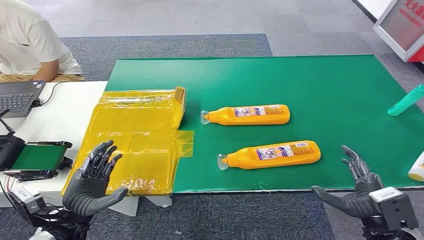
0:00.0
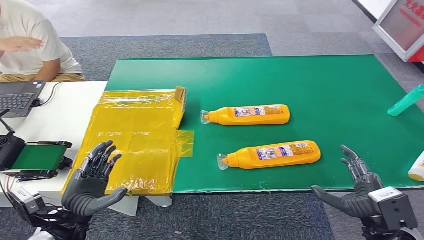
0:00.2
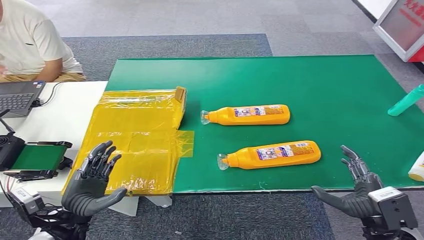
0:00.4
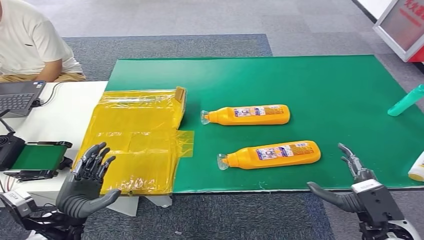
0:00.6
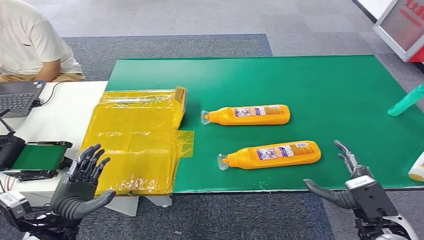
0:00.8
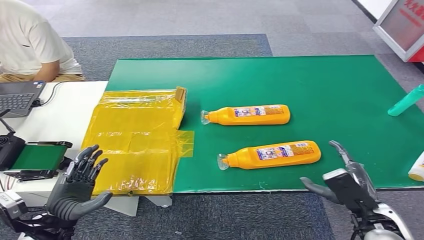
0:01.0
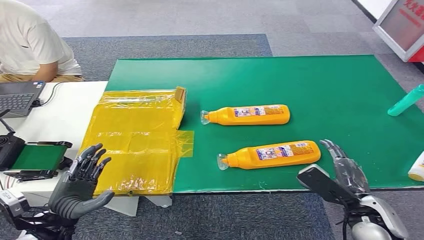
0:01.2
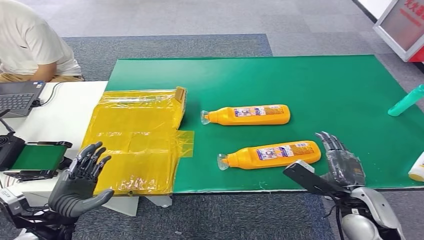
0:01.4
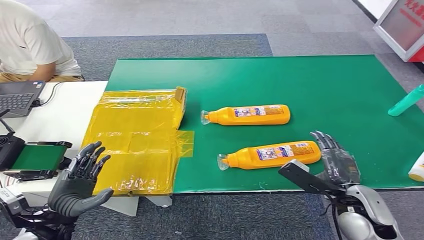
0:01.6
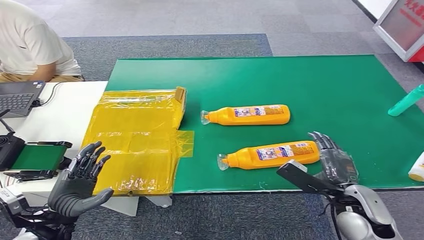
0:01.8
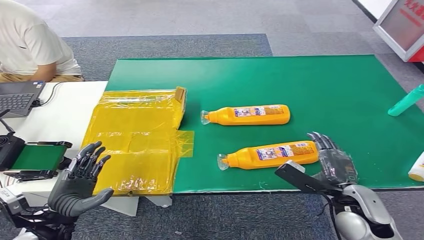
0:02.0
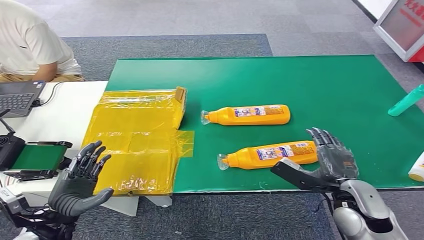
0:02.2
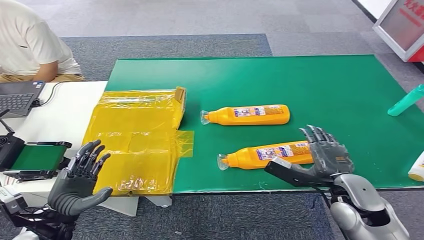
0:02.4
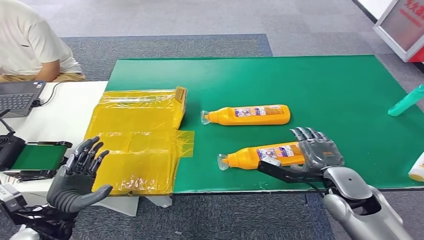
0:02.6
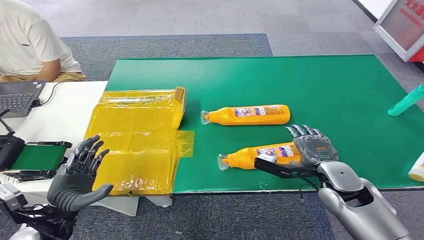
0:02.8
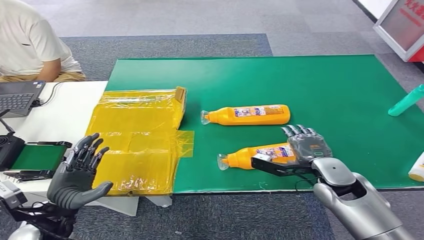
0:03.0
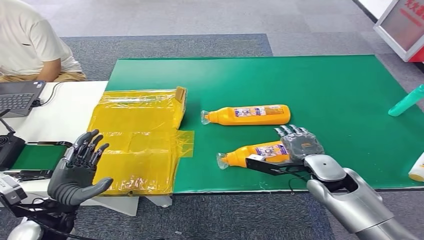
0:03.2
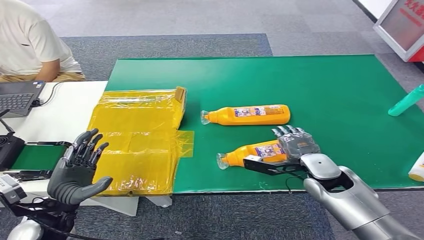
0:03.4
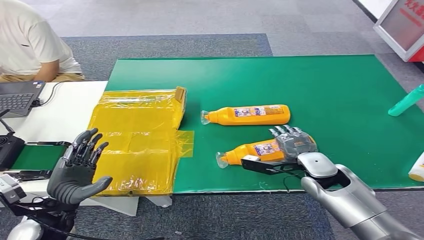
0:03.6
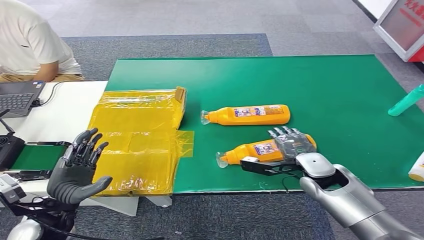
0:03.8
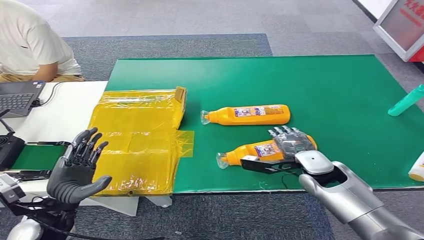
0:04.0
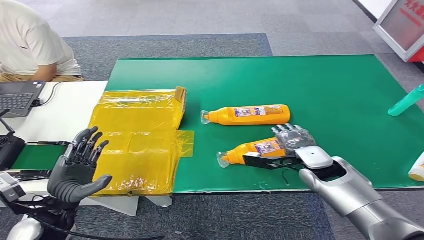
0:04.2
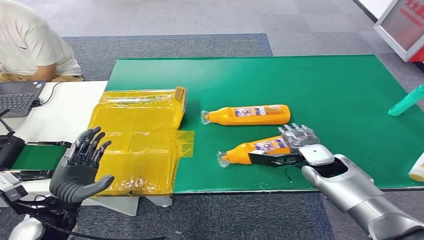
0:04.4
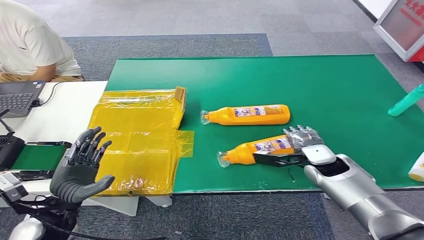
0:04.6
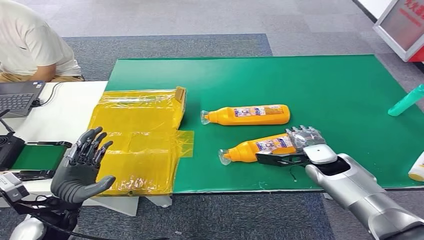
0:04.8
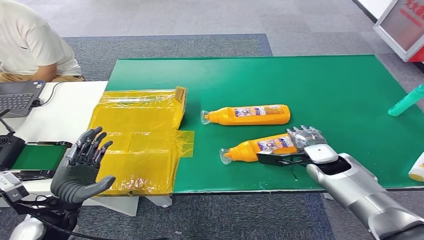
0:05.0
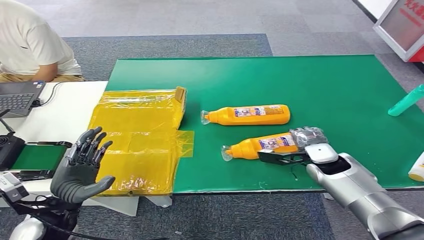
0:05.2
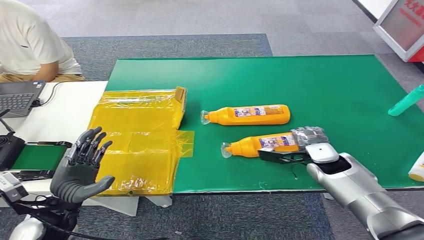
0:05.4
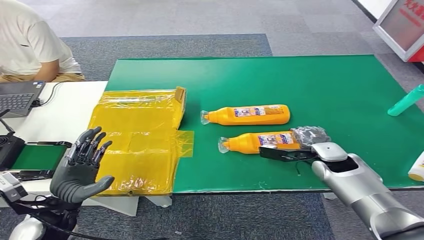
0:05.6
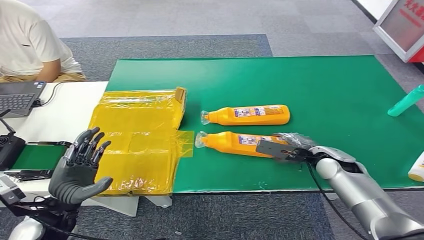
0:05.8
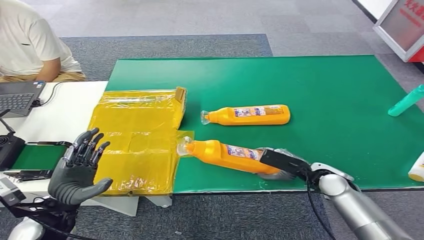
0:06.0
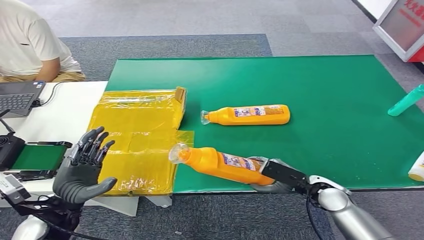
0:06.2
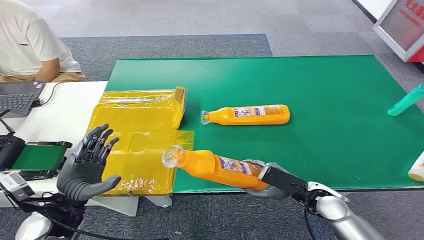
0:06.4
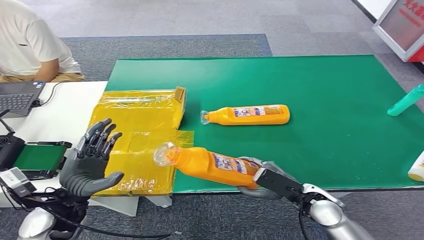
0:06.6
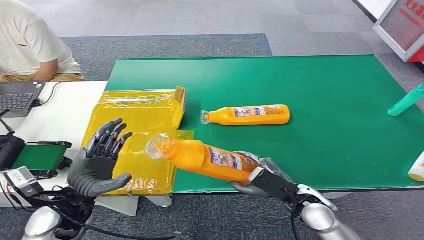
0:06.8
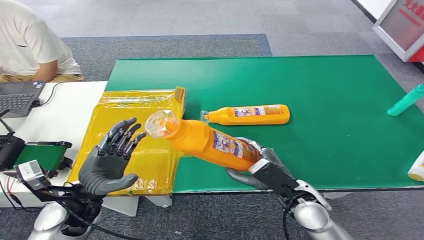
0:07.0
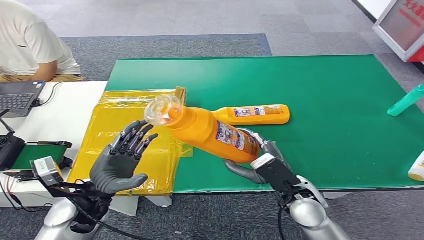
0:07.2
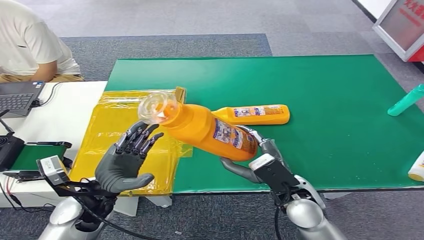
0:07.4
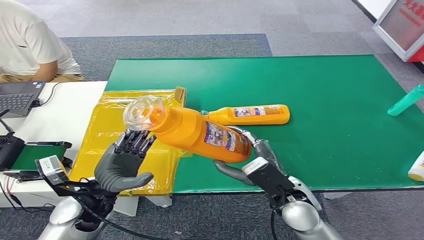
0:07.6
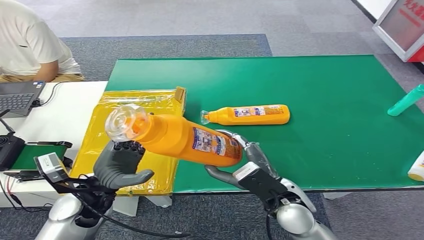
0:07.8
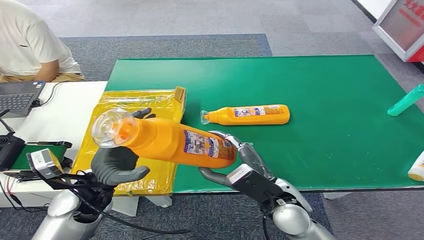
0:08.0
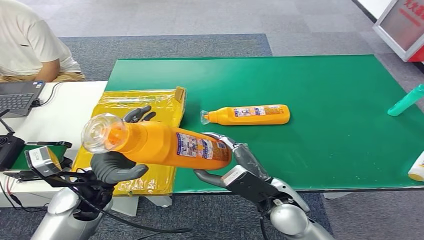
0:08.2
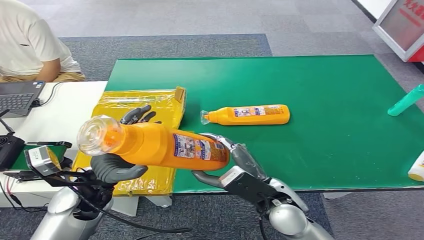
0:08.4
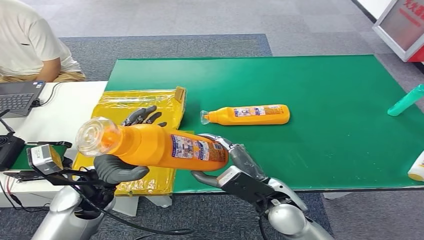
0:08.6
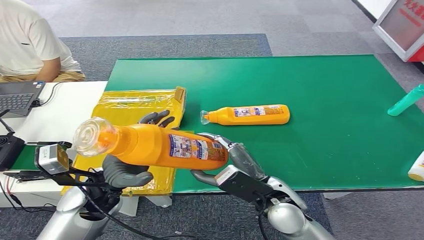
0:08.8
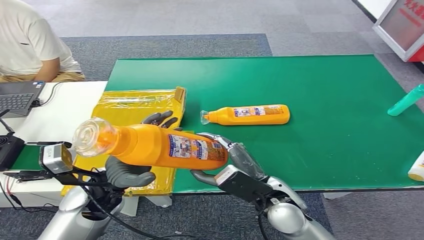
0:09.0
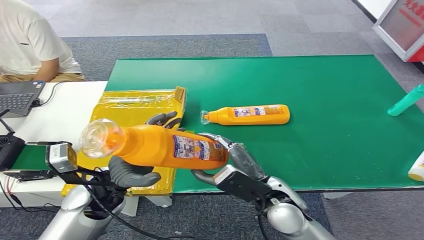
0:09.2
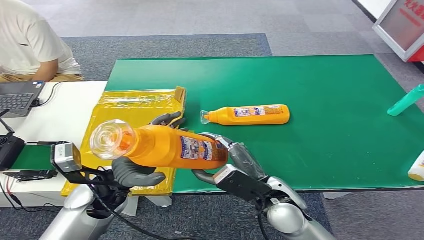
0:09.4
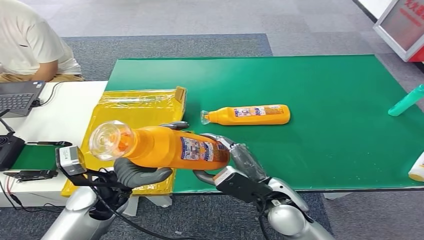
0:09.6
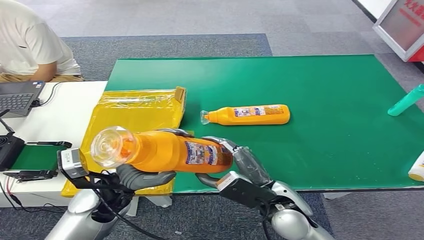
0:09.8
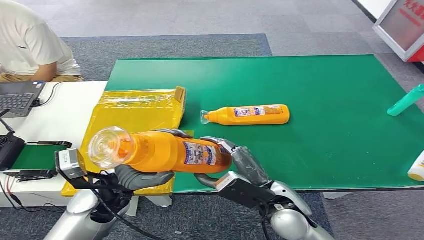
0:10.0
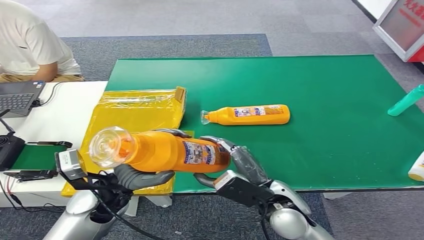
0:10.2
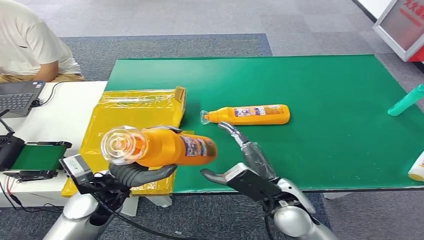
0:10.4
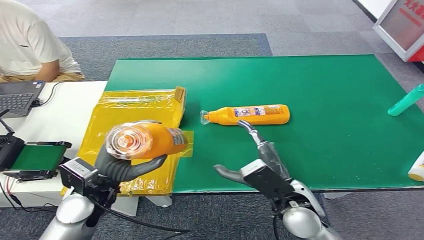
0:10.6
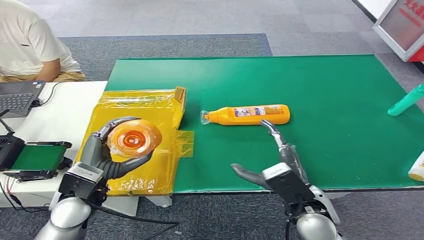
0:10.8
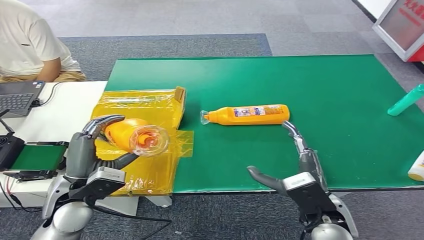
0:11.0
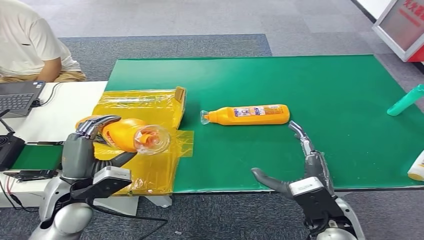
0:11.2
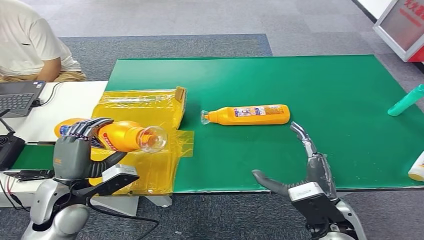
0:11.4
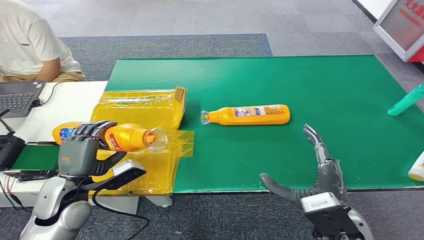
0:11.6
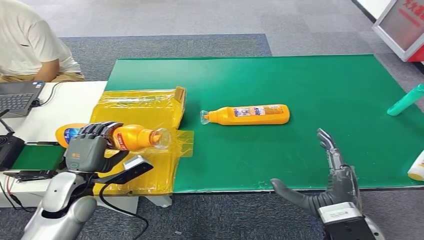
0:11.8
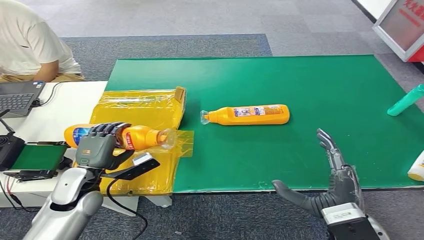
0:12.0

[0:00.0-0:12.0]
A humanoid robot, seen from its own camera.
Step, 0:00.0 to 0:08.4: Pick up the bottle from the table.
0:01.6 to 0:03.0: The right hand heads forward, covering approximately 10 cm.
0:03.0 to 0:04.4: The right hand goes some 5 cm forward.
0:04.4 to 0:06.0: The right hand ends up approximately 5 cm from where it was.
0:07.6 to 0:09.0: There are only small adjustments of the hands.
0:10.4 to 0:12.0: The left hand travels to the left by some 5 cm, while the right hand travels to the right and backward by about 15 cm.

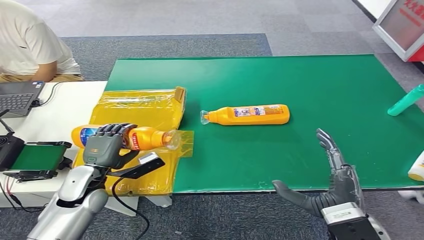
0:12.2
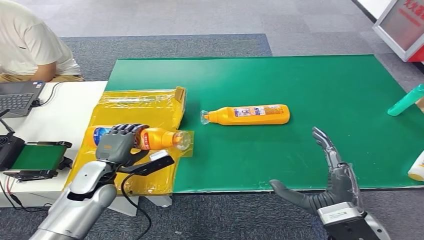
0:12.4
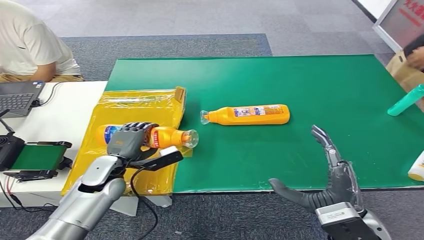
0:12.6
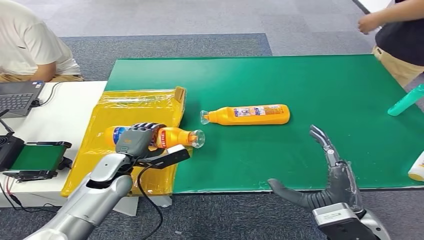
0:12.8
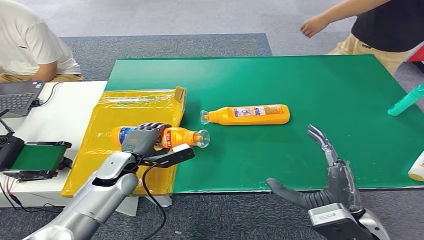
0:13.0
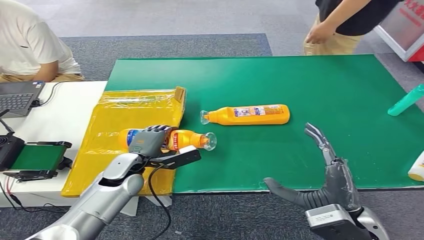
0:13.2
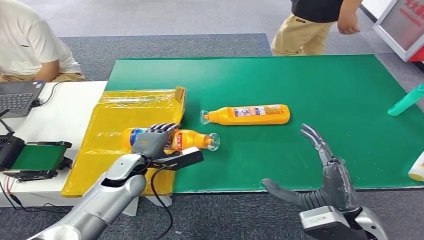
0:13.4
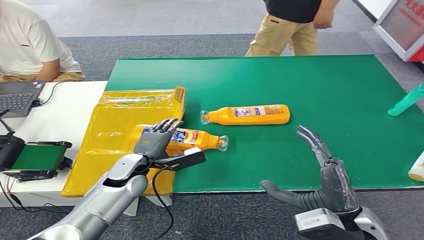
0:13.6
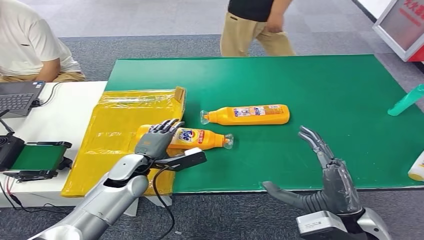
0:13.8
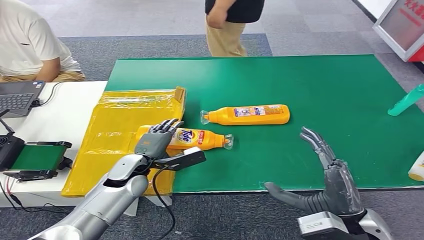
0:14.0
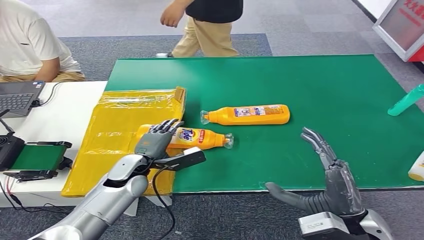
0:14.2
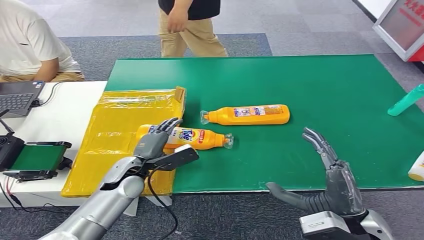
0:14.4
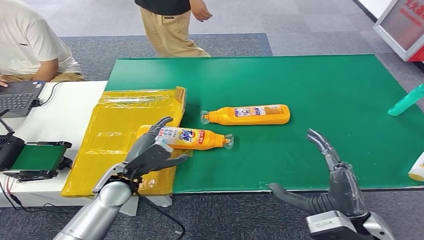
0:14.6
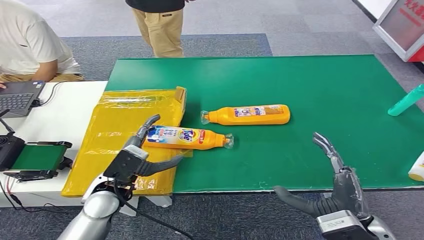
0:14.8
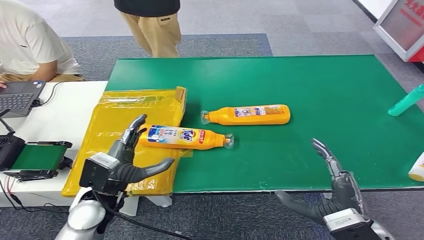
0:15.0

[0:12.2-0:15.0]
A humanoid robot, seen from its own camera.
Step, 0:12.2 to 0:15.0: Turn the bottle to the front side.
0:12.2 to 0:13.6: The left hand is displaced to the right by approximately 10 cm.
